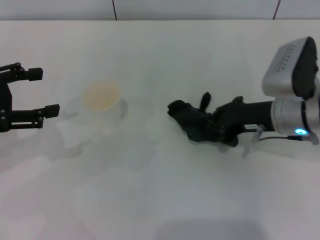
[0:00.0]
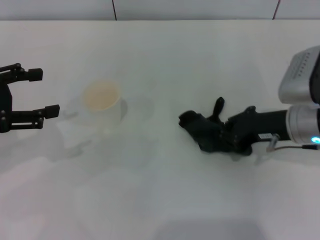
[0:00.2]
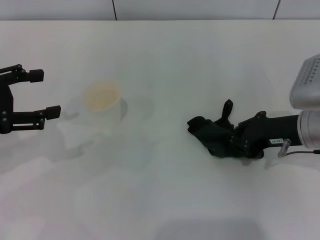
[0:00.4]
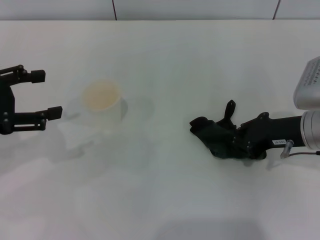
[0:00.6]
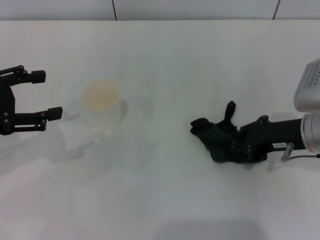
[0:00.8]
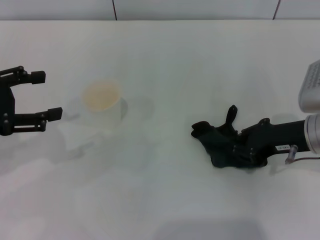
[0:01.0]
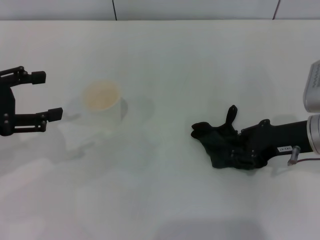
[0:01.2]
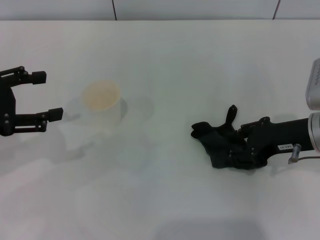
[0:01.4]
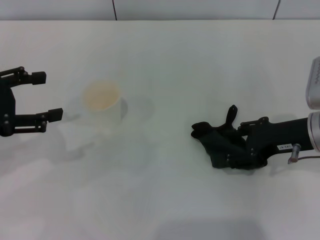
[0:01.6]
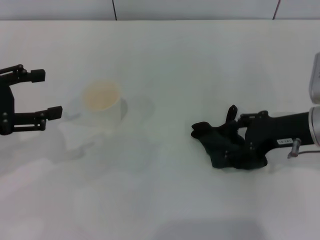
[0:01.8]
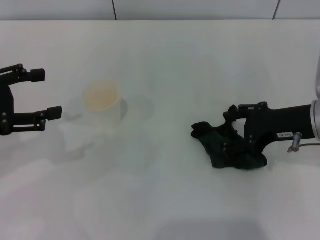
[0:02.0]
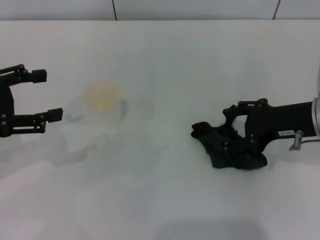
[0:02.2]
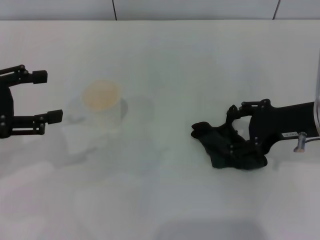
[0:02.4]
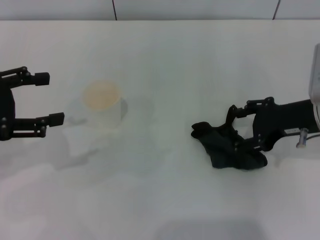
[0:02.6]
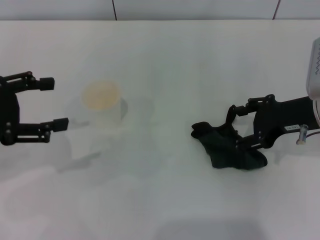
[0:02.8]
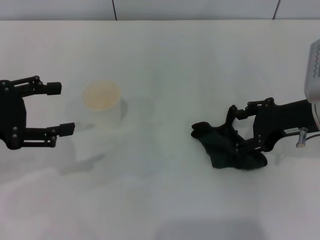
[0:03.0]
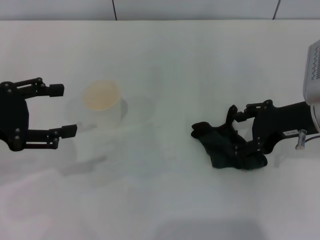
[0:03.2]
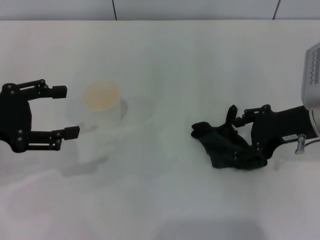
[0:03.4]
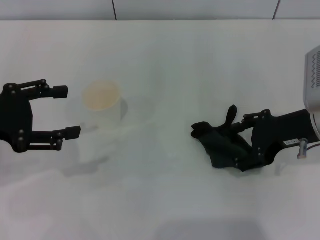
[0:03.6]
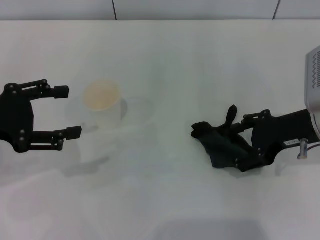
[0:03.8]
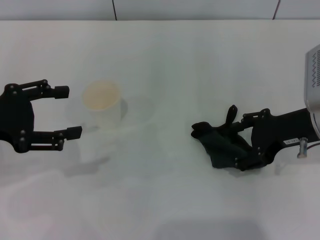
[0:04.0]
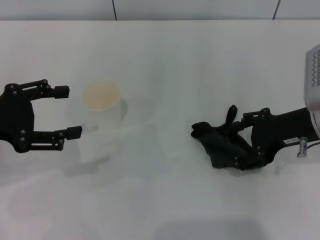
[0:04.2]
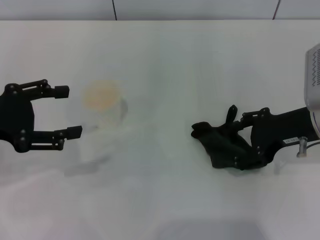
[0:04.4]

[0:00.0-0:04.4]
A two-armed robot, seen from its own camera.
Step, 0:00.0 to 0:02.4: Place the rag on the table with the right gripper.
0:00.0 to 0:01.4: The grippers stay close to where they were, moving slightly.
0:01.4 to 0:03.0: The right gripper opens.
0:03.0 to 0:04.4: Both grippers stay put.

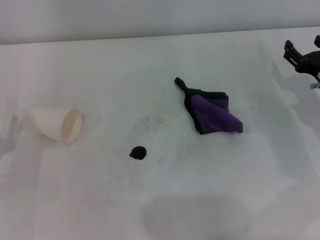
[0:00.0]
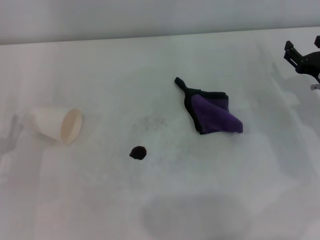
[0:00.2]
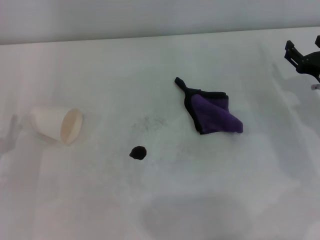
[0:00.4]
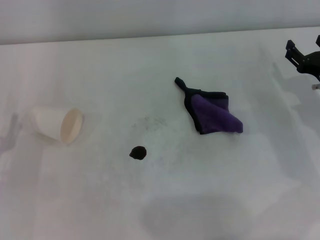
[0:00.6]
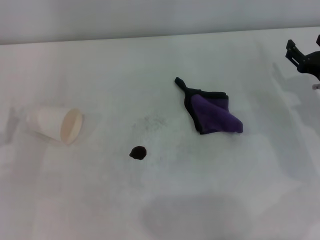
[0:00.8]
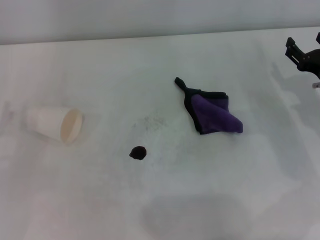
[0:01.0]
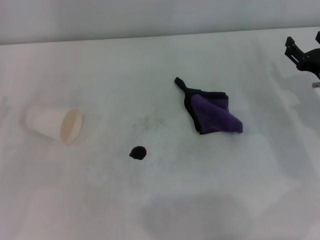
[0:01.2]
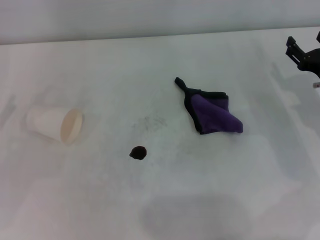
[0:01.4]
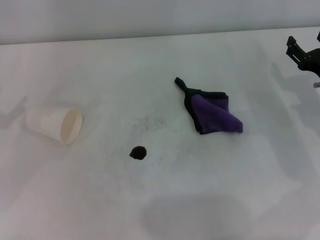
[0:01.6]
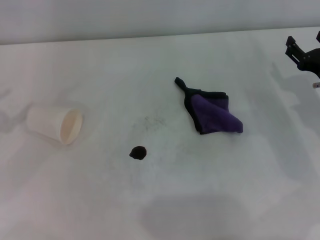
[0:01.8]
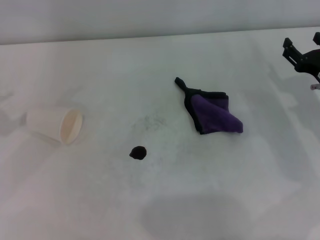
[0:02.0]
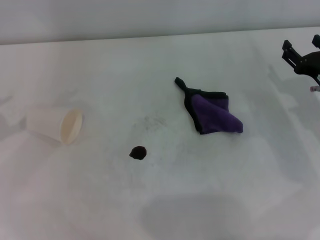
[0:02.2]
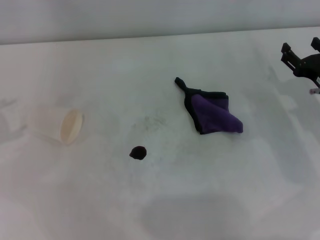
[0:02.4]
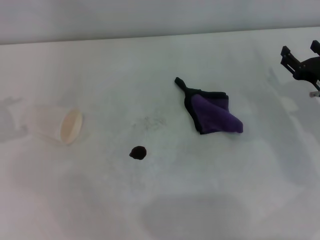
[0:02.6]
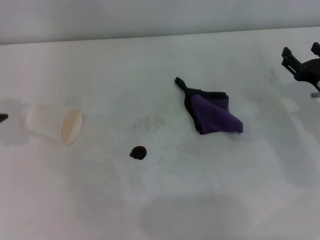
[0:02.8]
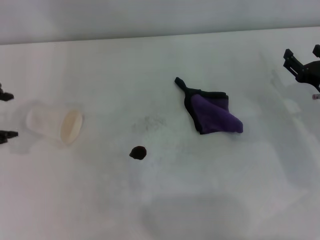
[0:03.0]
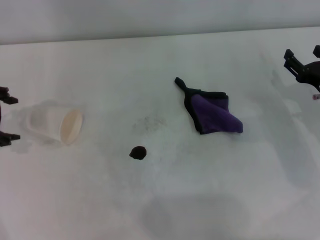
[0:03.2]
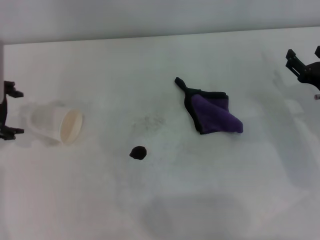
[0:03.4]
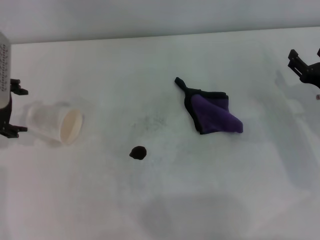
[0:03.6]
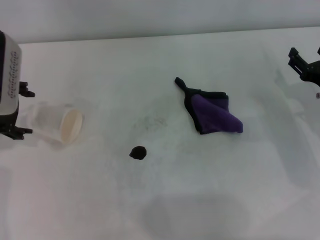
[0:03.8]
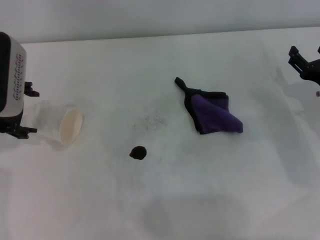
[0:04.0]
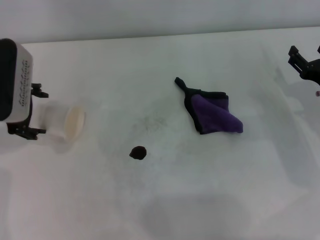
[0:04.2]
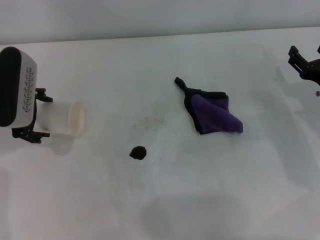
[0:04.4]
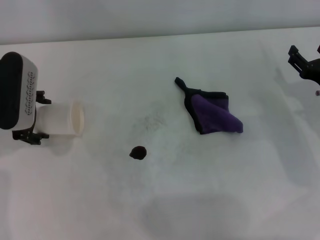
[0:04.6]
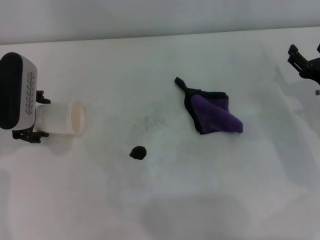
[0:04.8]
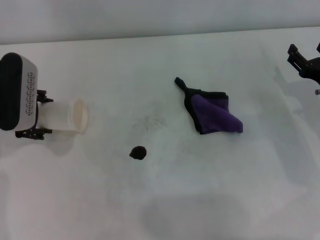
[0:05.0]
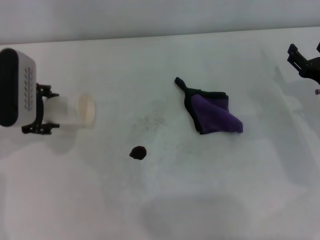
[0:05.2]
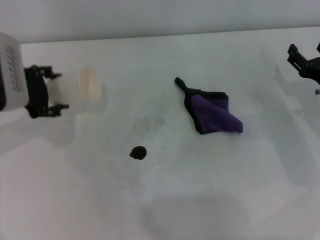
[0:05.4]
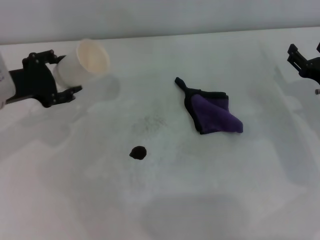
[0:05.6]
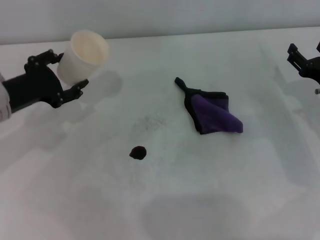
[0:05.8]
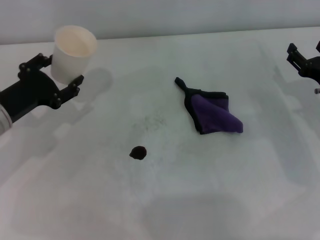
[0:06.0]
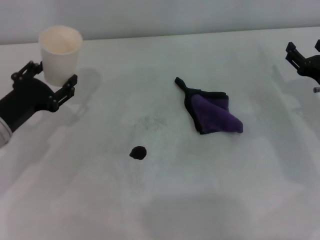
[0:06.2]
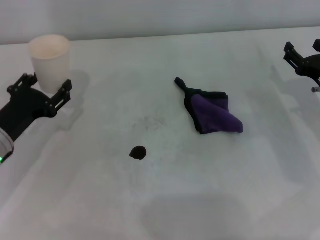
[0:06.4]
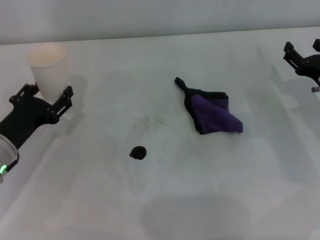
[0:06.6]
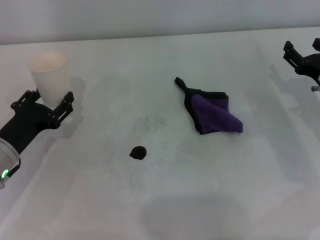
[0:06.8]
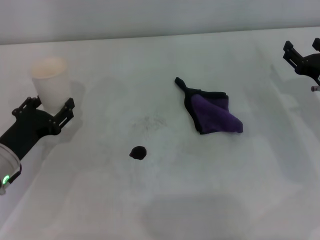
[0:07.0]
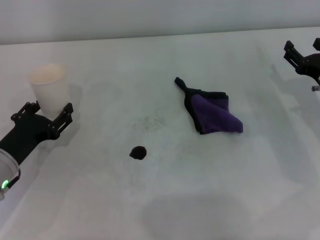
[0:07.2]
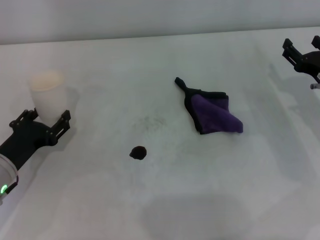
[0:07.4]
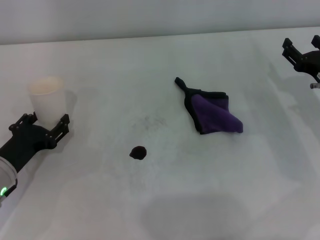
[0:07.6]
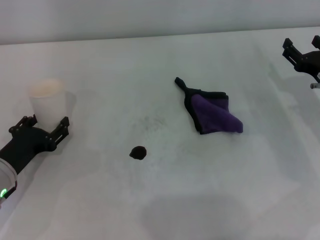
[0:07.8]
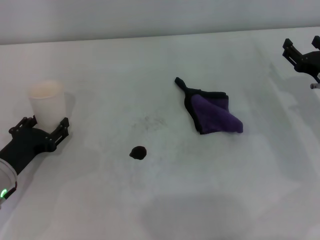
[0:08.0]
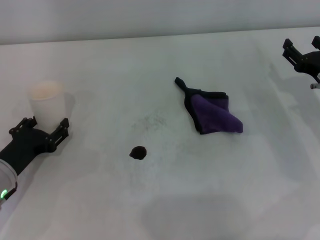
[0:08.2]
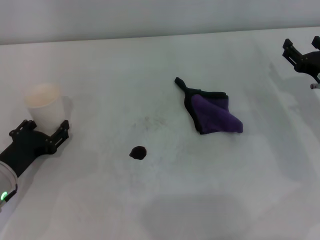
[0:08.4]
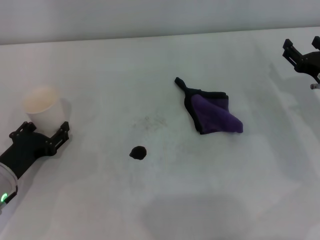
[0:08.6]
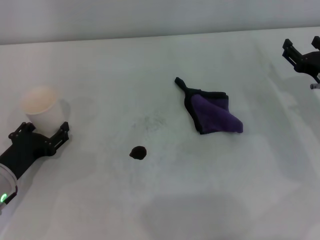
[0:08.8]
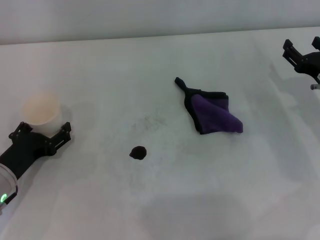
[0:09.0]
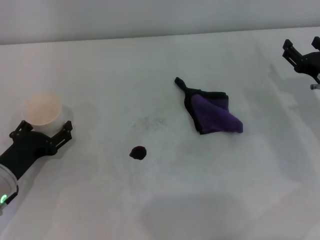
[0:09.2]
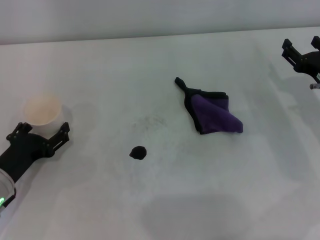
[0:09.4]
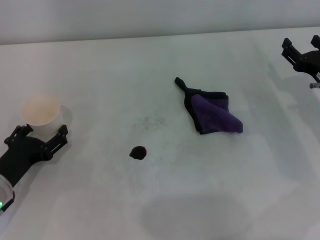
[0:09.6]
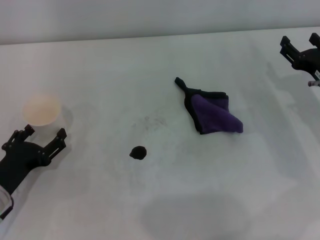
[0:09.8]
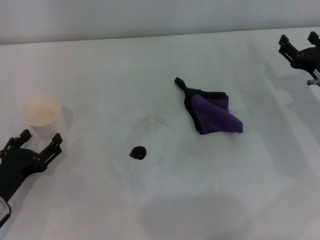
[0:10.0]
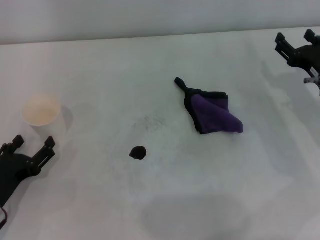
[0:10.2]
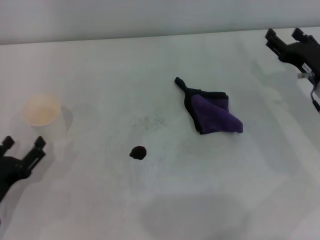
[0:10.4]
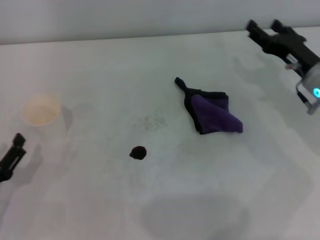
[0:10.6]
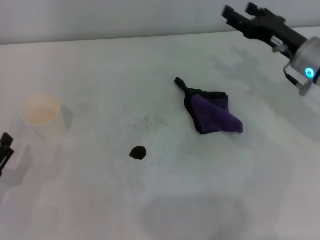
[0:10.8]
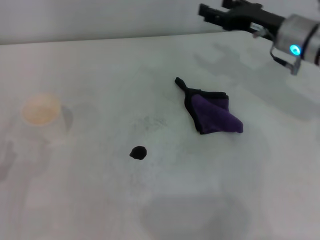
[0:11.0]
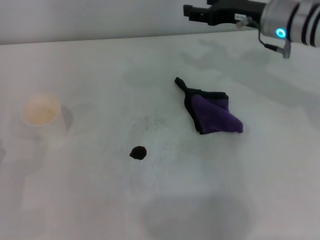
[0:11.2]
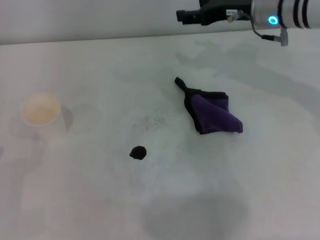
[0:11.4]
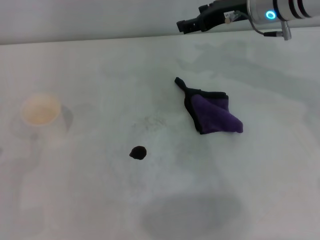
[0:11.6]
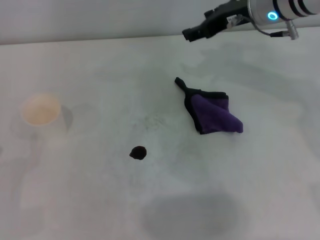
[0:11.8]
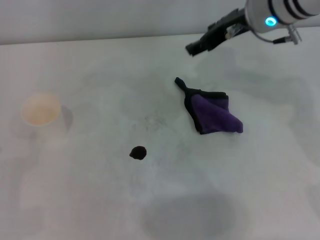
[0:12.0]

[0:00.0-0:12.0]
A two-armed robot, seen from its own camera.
Step, 0:00.0 to 0:04.8: Grasp the paper cup with the left gripper.
Step, 0:05.0 to 0:09.0: Stand the paper cup upright with the left gripper.
0:03.0 to 0:04.4: The left gripper is displaced to the right and downward by approximately 10 cm.
0:04.4 to 0:06.0: The left gripper goes about 5 cm downward, and closes up.
0:06.0 to 0:07.6: The left gripper shifts about 10 cm downward and backward.
0:07.6 to 0:09.0: Both grippers stay about where they are.
0:09.0 to 0:10.4: The left gripper is displaced backward by roughly 5 cm, and opens.
0:10.4 to 0:12.0: The right gripper travels upward, to the left and forward by some 20 cm.

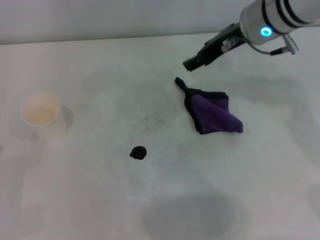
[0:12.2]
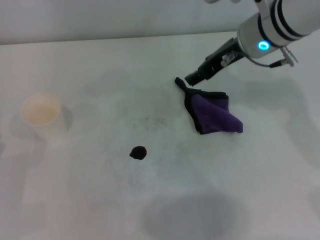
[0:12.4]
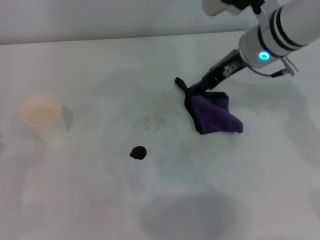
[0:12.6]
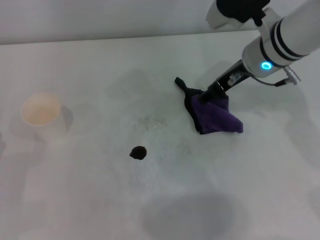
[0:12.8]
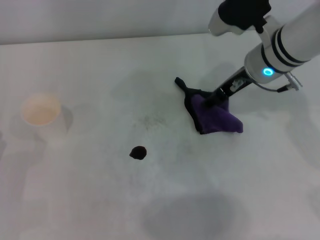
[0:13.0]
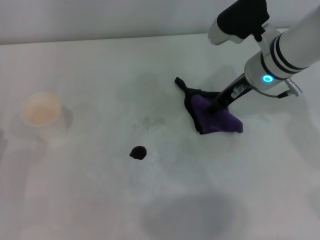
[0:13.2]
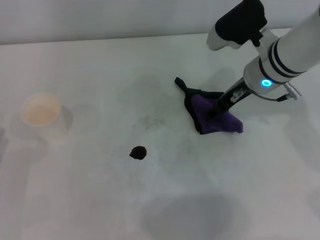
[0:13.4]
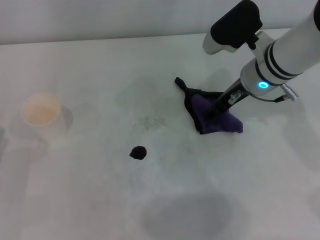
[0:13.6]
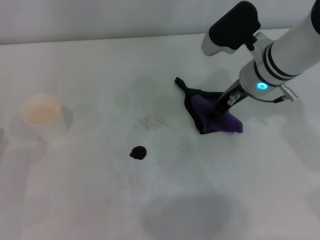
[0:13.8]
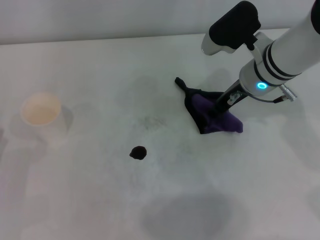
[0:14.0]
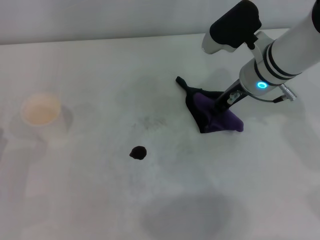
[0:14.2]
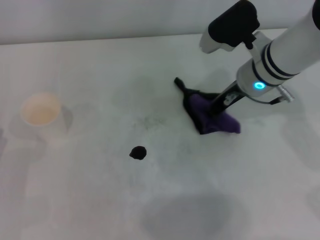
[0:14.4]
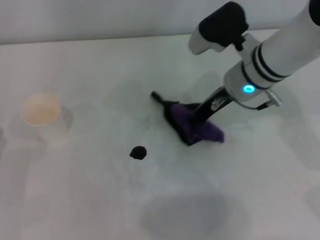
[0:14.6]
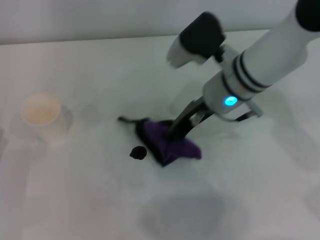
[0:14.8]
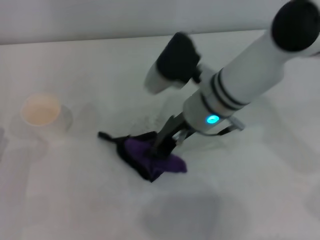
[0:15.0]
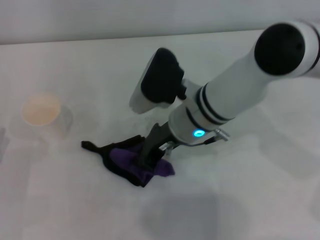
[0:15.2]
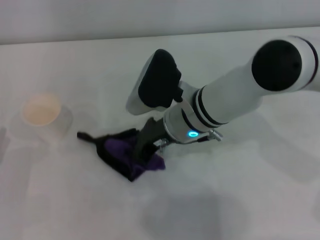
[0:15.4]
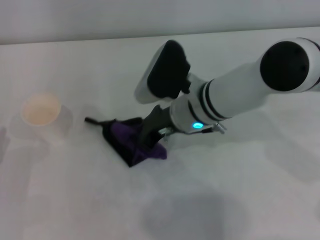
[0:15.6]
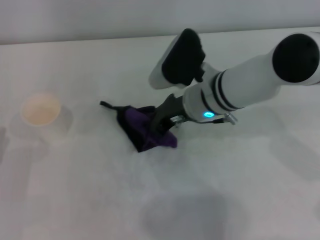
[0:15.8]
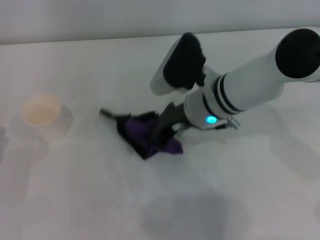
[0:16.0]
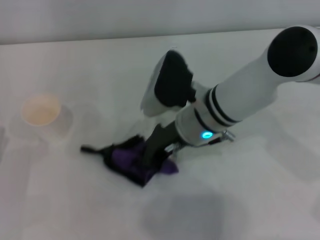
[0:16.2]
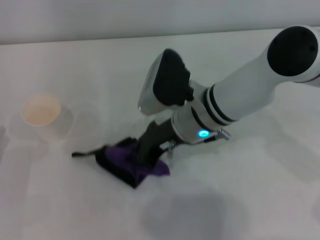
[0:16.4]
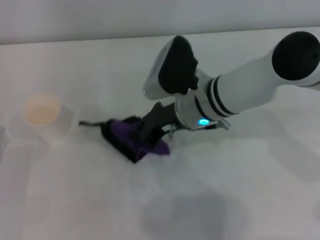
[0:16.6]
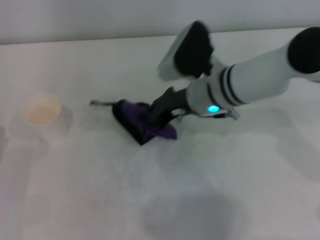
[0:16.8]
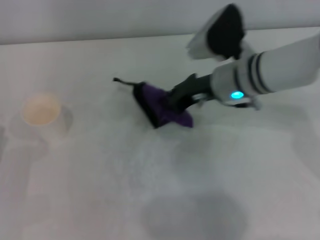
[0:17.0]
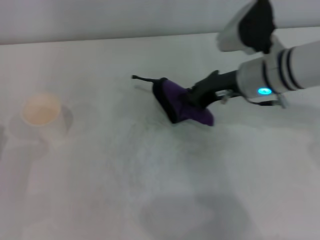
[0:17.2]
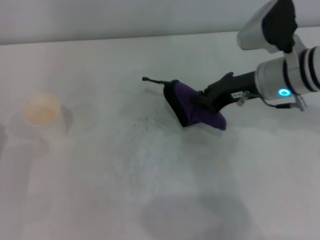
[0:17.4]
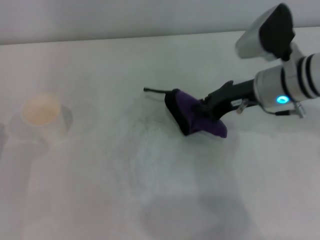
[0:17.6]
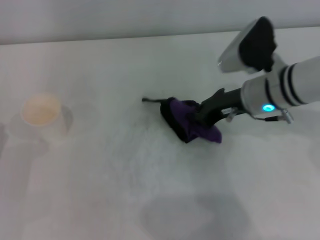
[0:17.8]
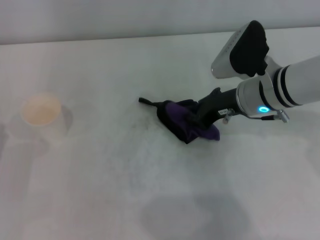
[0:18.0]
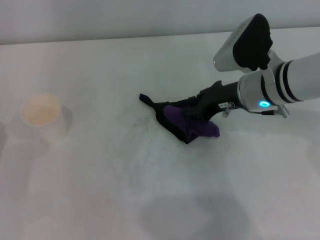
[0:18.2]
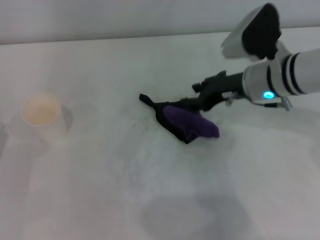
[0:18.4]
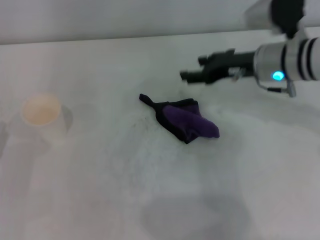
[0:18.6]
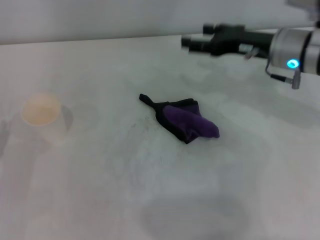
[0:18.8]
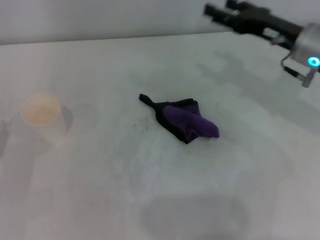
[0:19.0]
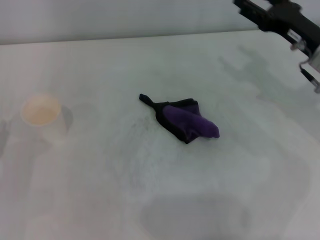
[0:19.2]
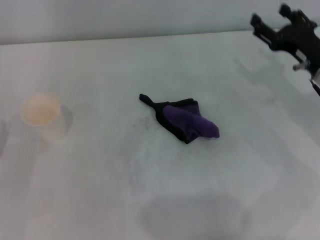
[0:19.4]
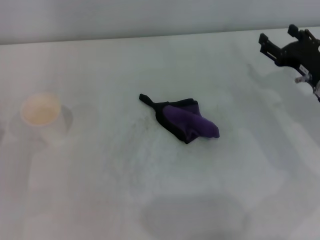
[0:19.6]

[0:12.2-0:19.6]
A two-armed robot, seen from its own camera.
Step, 0:12.2 to 0:14.2: Grasp the rag with the right gripper.
Step, 0:14.4 to 0:17.2: Wipe the stains off the table with the right gripper.
Step, 0:17.4 to 0:18.0: Place the rag on the table with the right gripper.
0:12.2 to 0:13.6: The right gripper travels downward by approximately 10 cm.
0:13.6 to 0:15.2: The right gripper is displaced to the left and backward by about 10 cm, and closes.
0:15.2 to 0:16.6: The grippers stay close to where they were, moving slightly.
0:16.6 to 0:18.2: The right gripper goes some 10 cm to the right.
0:18.2 to 0:19.6: The right gripper shifts about 10 cm to the right, and opens.
